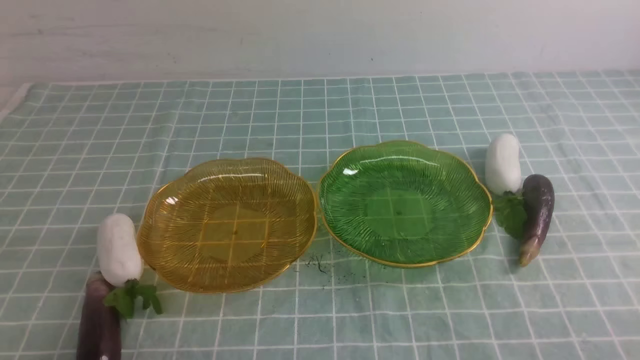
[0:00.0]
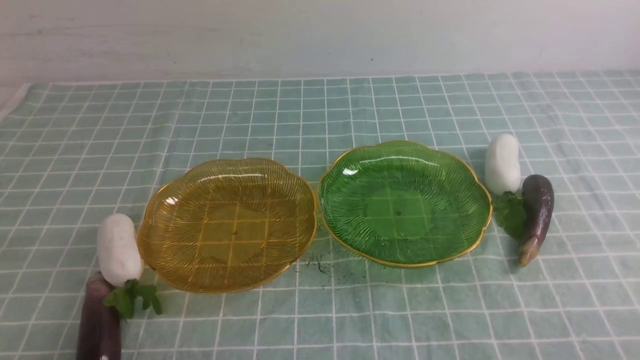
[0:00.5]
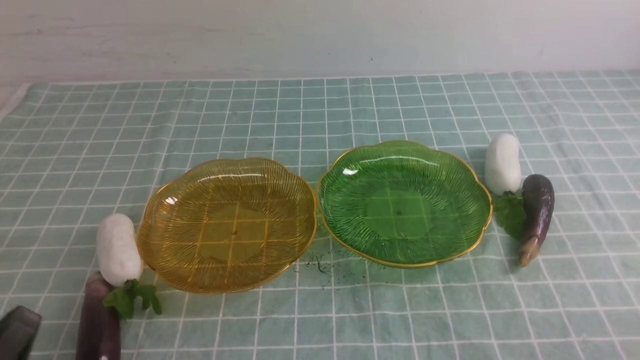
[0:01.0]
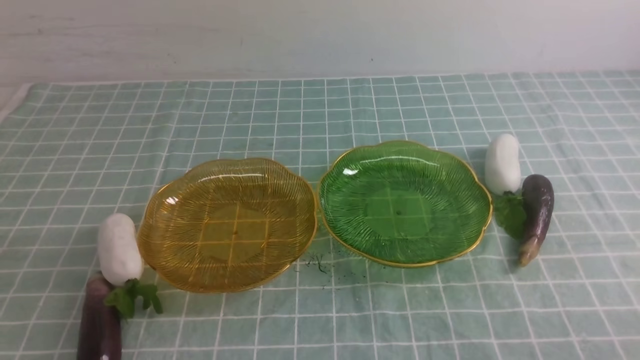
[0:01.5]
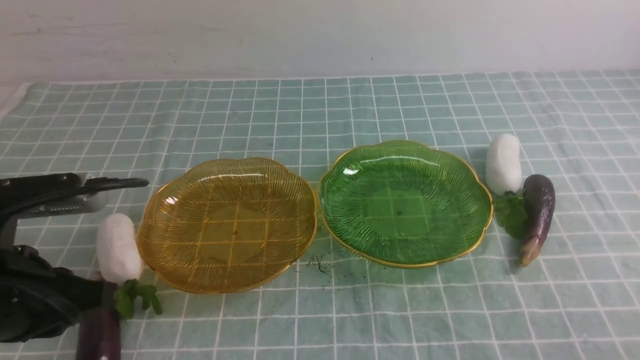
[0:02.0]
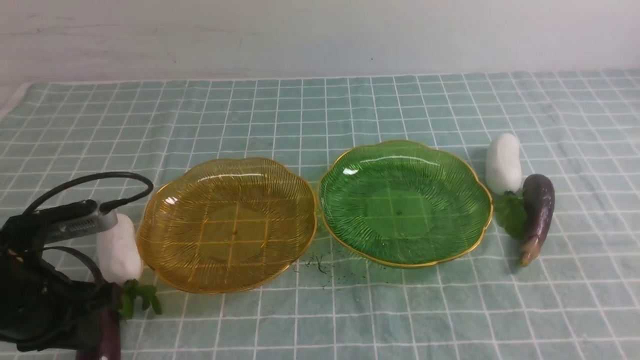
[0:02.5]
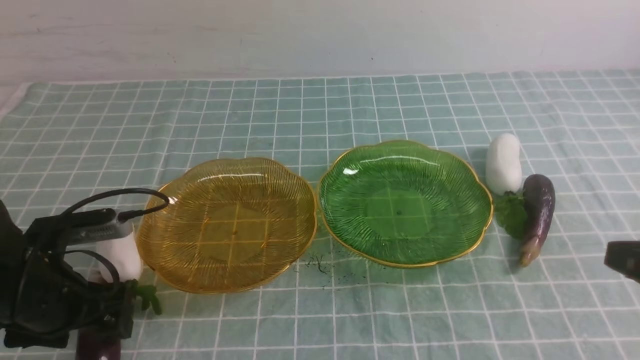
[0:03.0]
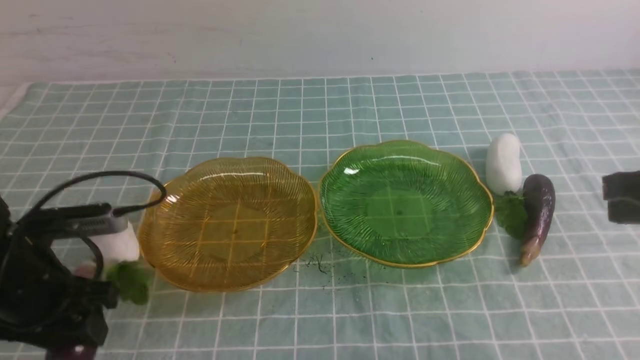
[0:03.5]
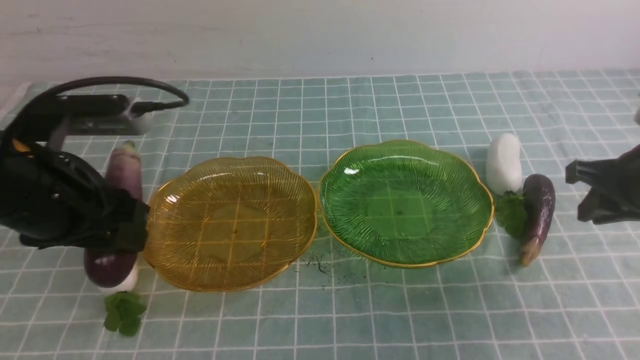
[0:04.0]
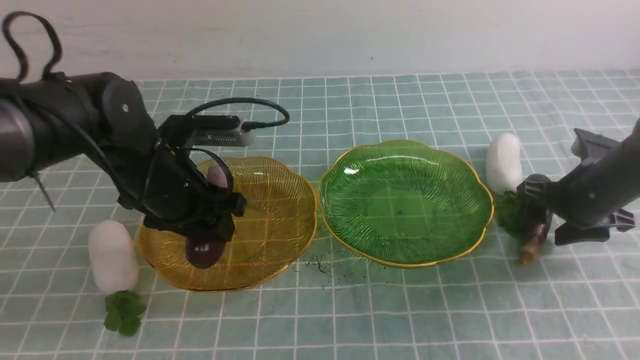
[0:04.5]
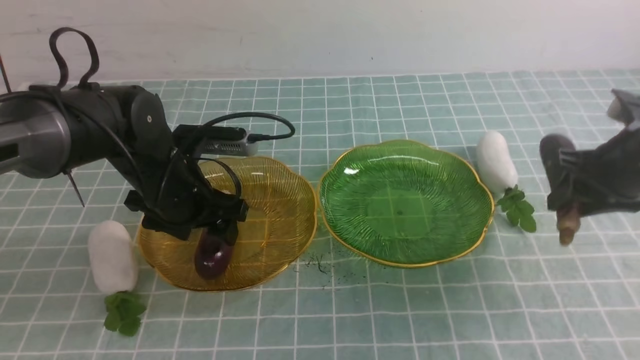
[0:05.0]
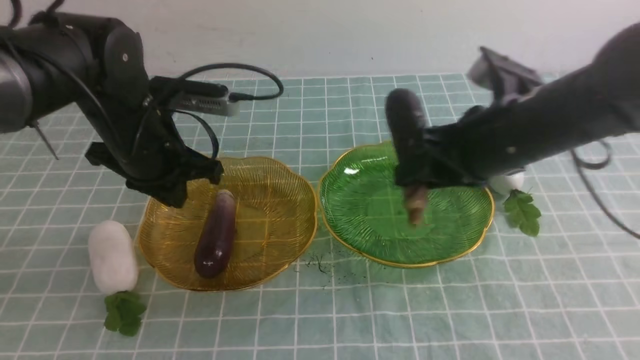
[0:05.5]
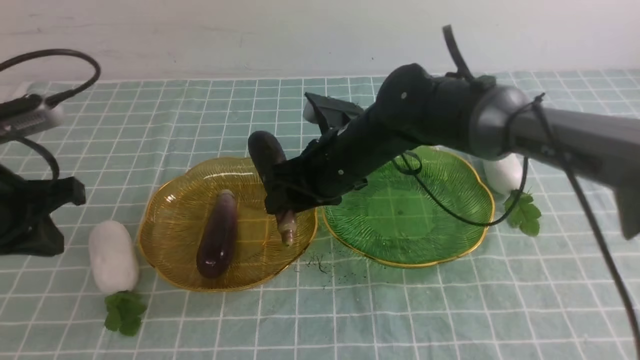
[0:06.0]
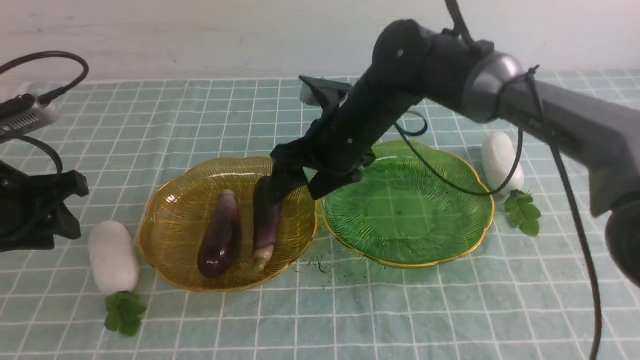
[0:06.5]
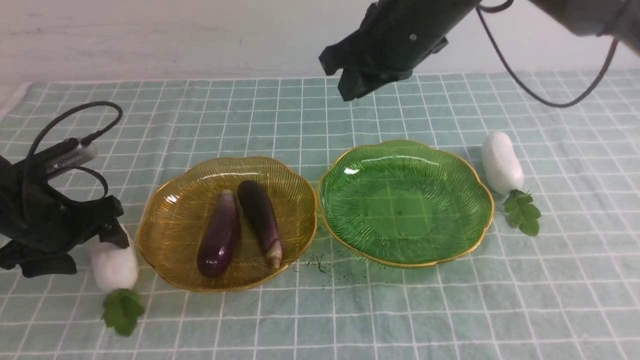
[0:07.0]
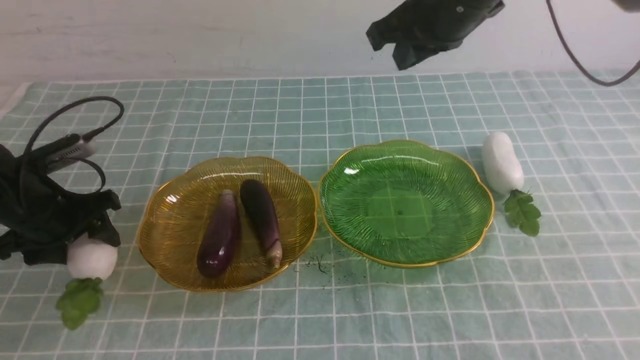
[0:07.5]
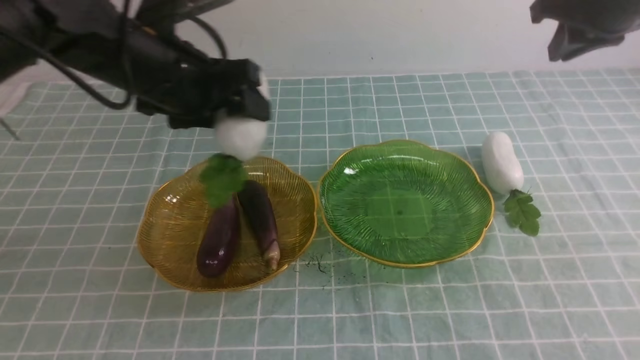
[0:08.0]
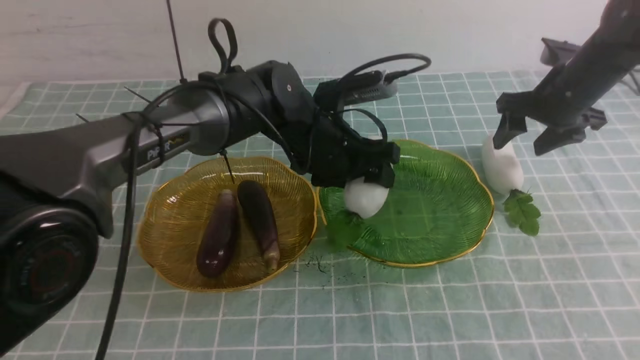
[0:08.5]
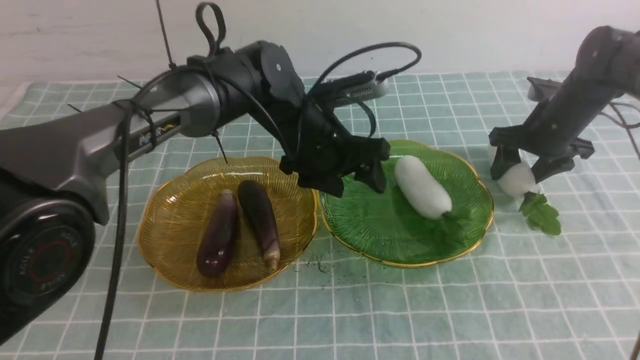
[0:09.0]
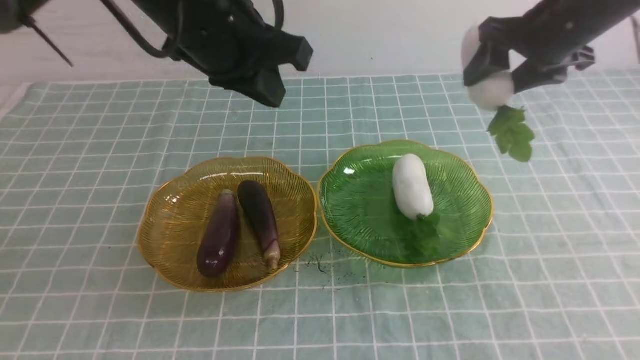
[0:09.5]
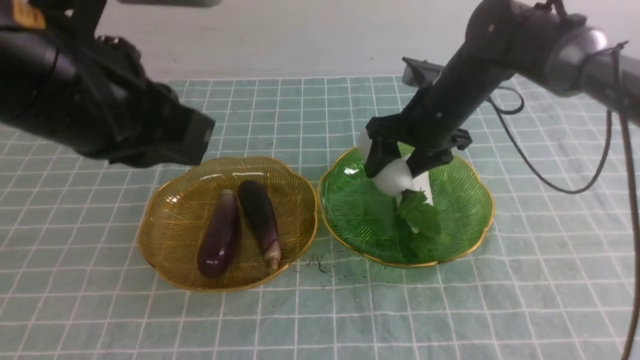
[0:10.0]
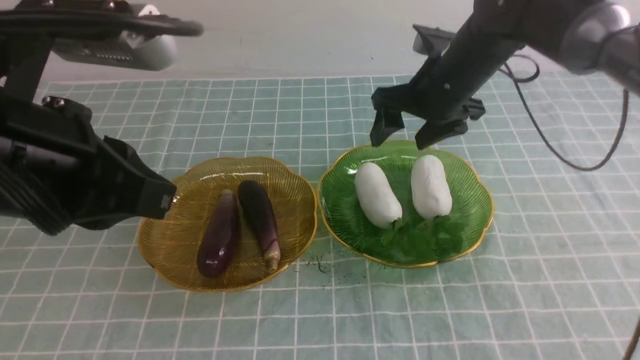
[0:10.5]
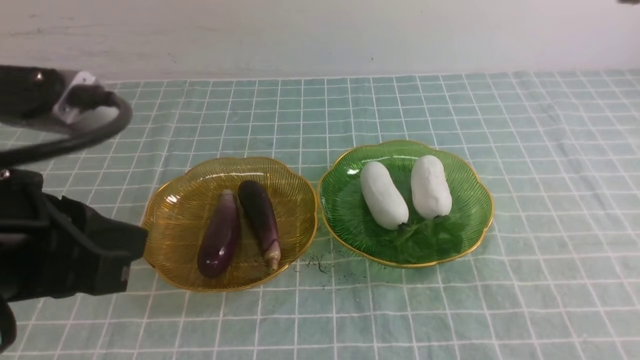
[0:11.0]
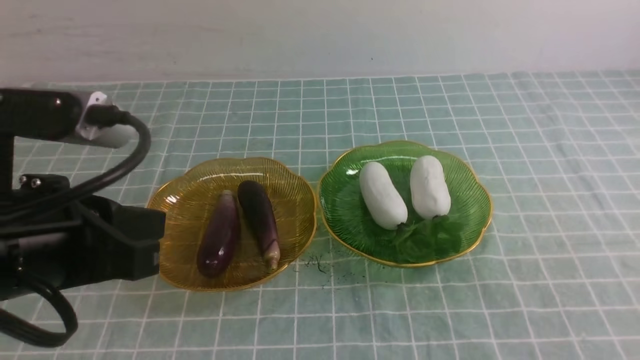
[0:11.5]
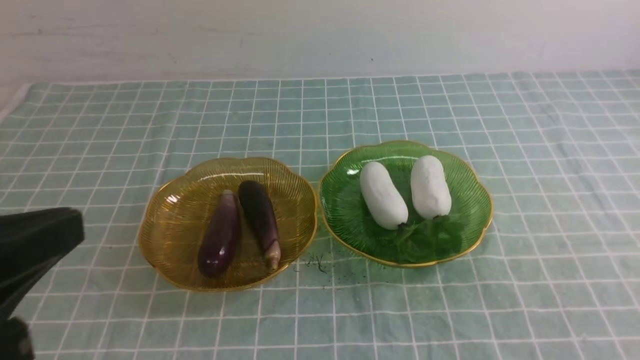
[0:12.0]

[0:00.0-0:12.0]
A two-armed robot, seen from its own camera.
Step, 0:00.0 to 0:04.0: use the left arm to grab an eggplant and put it into the left plate.
Step, 0:04.5 to 0:06.5: use the right arm to grab an eggplant and put it into the left plate.
Step, 0:07.0 to 0:08.5: use the left arm to grab a radish and put it into the right plate.
Step, 0:09.0 to 0:10.0: use the right arm to grab a radish and put it into the right plate.
0:00.0 to 0:02.0: The left gripper heads forward and upward, covering roughly 15 cm.
0:02.0 to 0:04.0: The left gripper heads forward, covering approximately 10 cm, moves about 10 cm downward and comes back, and opens its fingers; the right gripper is displaced forward by some 25 cm, and opens.
0:04.0 to 0:06.0: The right gripper goes some 30 cm to the left. The left gripper heads to the left, covering about 5 cm, and closes.
0:06.0 to 0:08.0: The left gripper travels to the right and forward by some 20 cm, and opens its fingers. Meanwhile the right gripper is displaced to the right and upward by about 30 cm, and closes its fingers.
0:08.0 to 0:10.0: The left gripper heads backward and upward, covering approximately 20 cm, and closes its fingers. The right gripper moves to the left and downward, some 20 cm, and opens.
0:10.0 to 0:12.0: The right gripper is displaced backward by about 40 cm, and closes its fingers; the left gripper heads backward and to the left, covering approximately 15 cm.

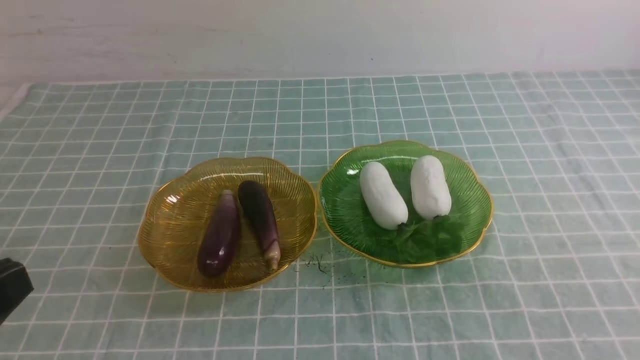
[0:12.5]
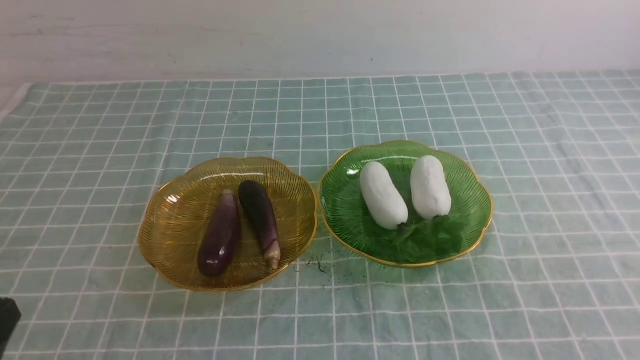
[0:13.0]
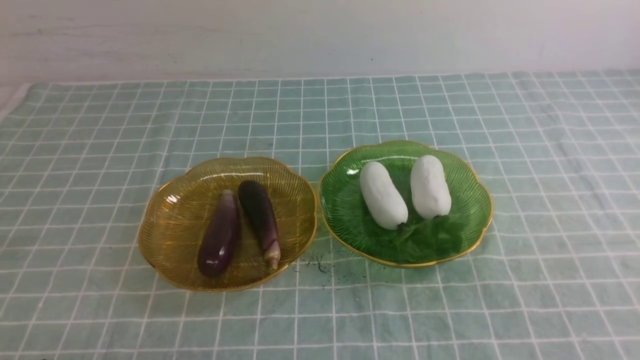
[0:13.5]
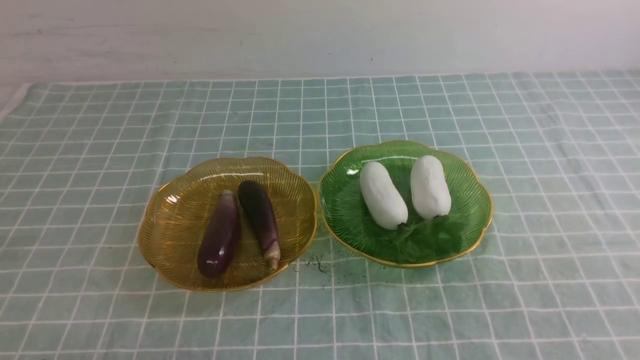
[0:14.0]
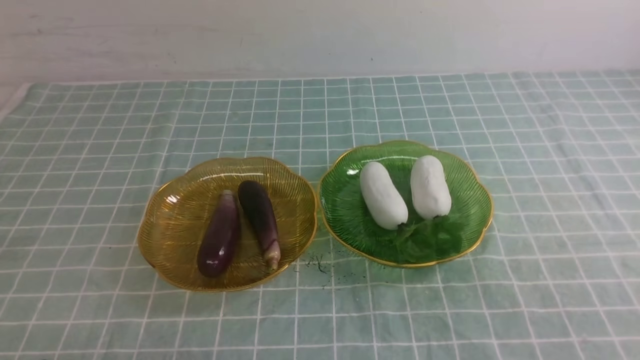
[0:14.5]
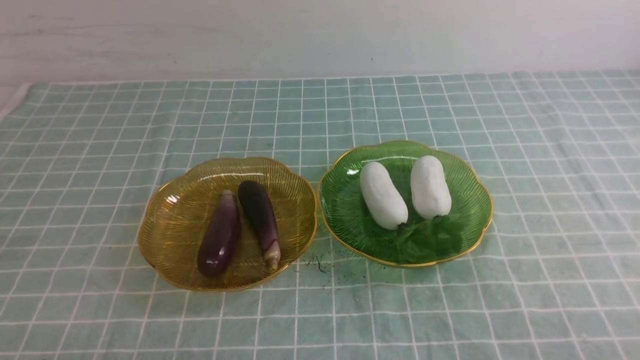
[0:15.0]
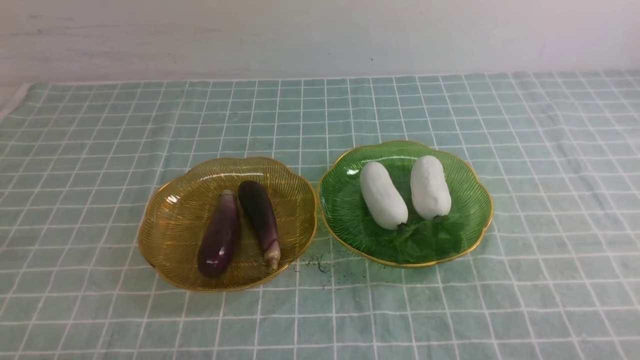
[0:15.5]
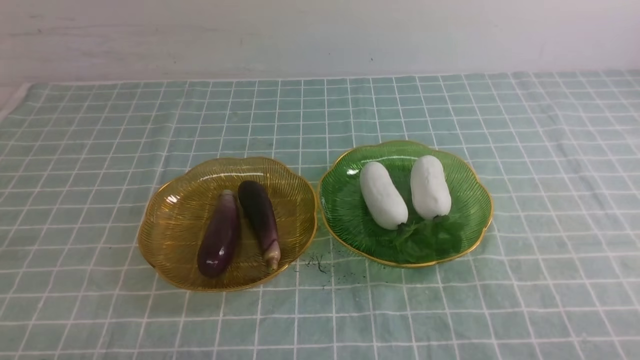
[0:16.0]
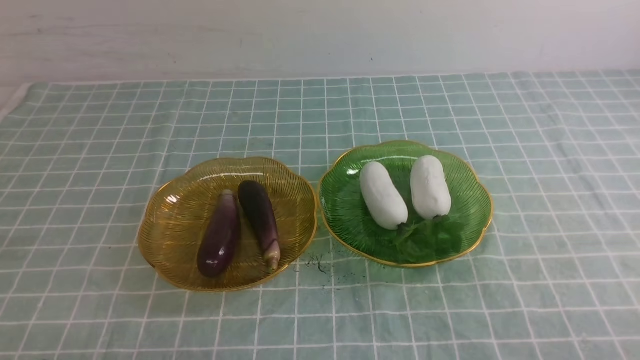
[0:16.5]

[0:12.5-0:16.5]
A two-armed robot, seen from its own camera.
0:12.5 to 0:14.5: The left gripper is displaced downward by approximately 15 cm.
